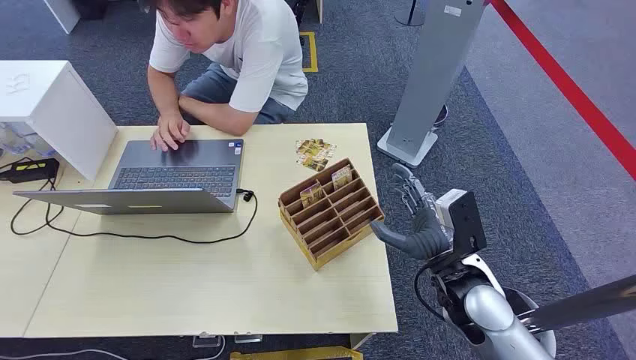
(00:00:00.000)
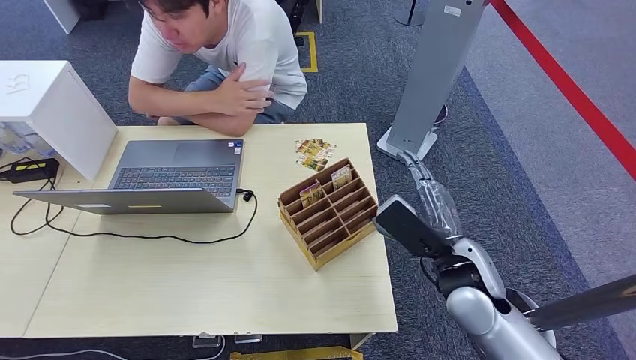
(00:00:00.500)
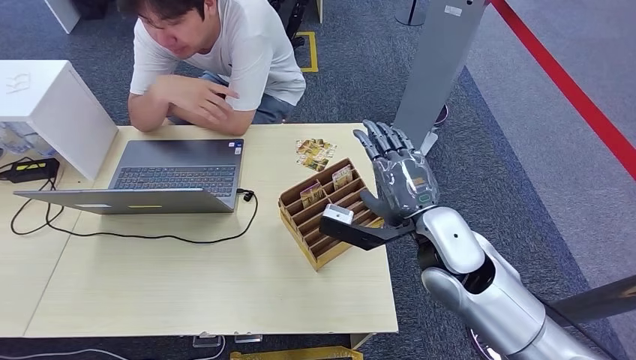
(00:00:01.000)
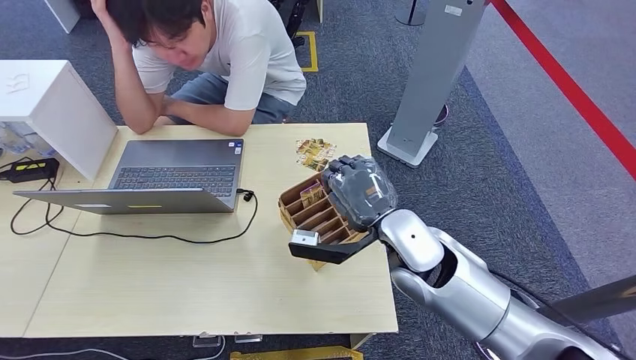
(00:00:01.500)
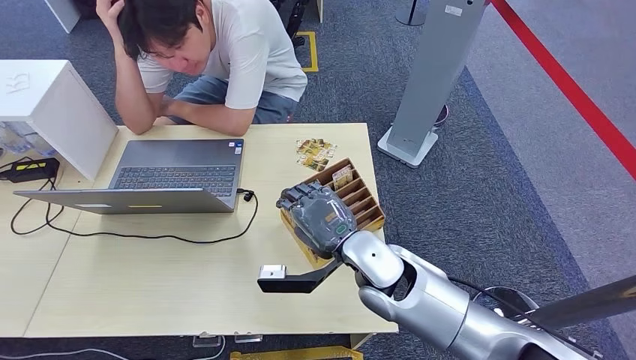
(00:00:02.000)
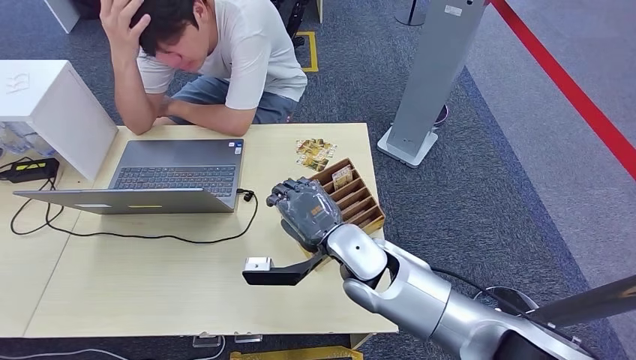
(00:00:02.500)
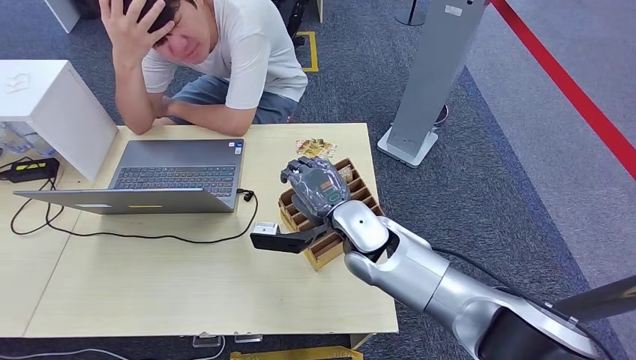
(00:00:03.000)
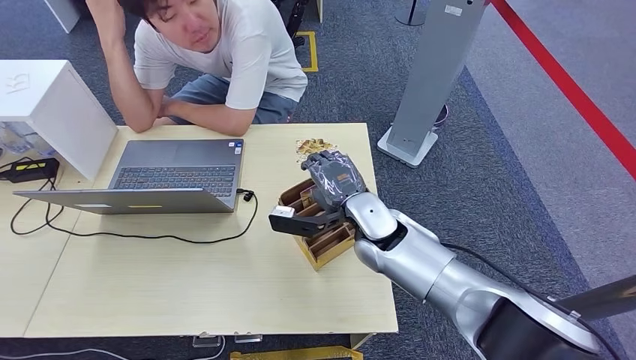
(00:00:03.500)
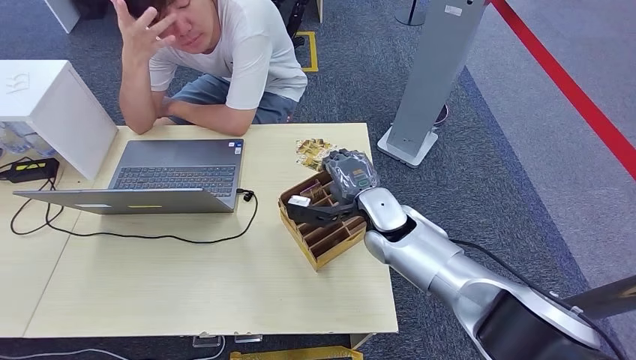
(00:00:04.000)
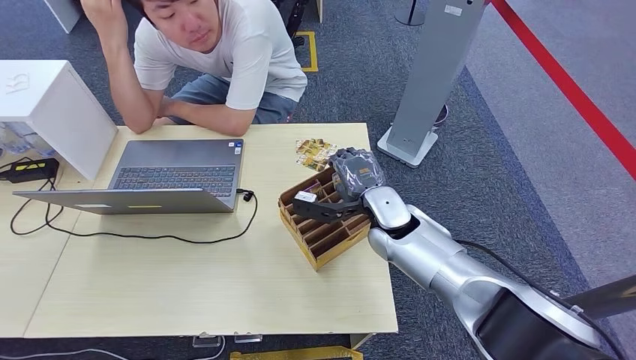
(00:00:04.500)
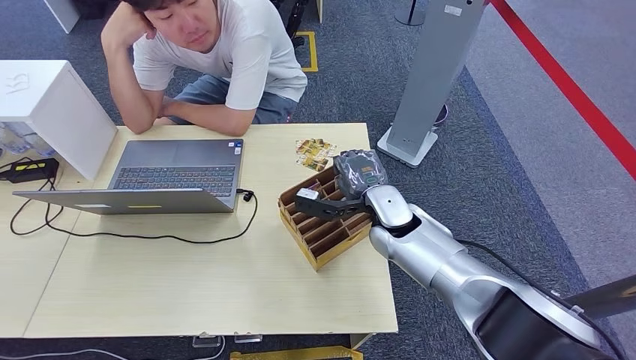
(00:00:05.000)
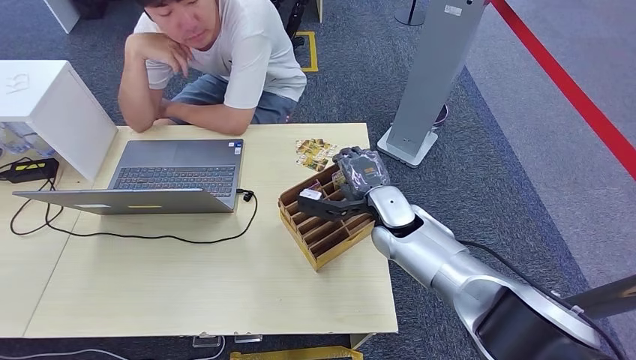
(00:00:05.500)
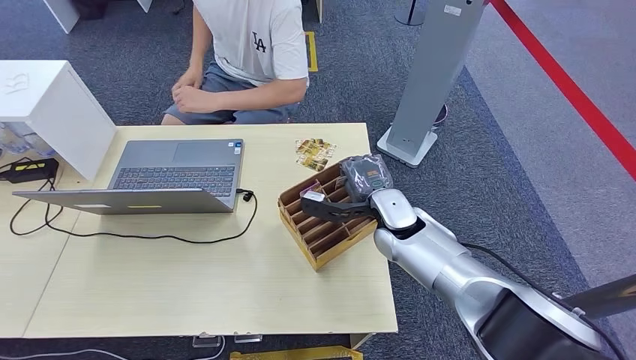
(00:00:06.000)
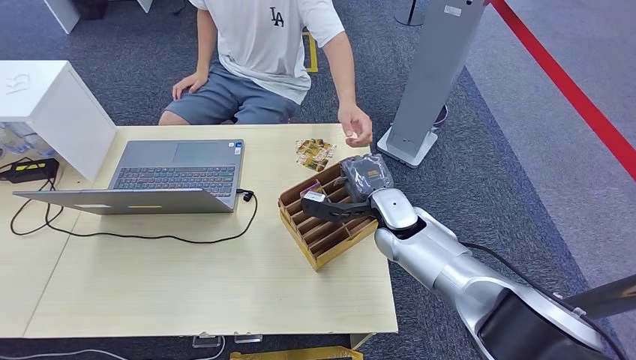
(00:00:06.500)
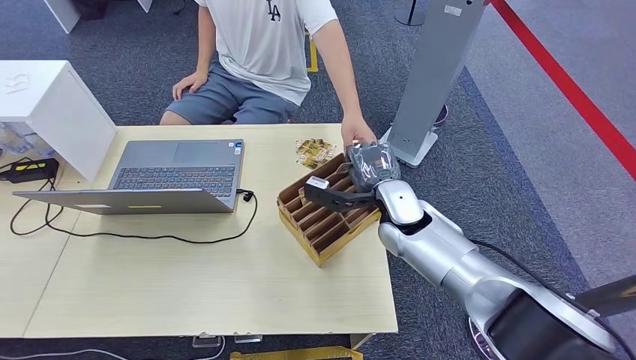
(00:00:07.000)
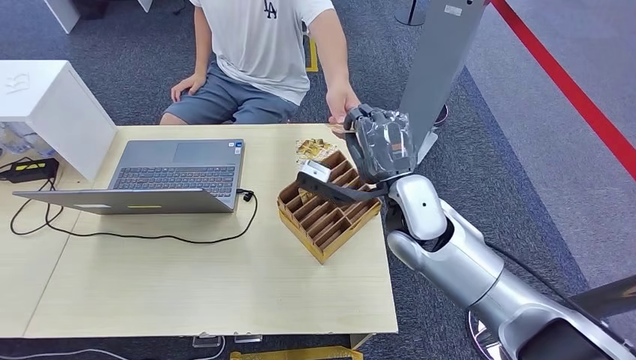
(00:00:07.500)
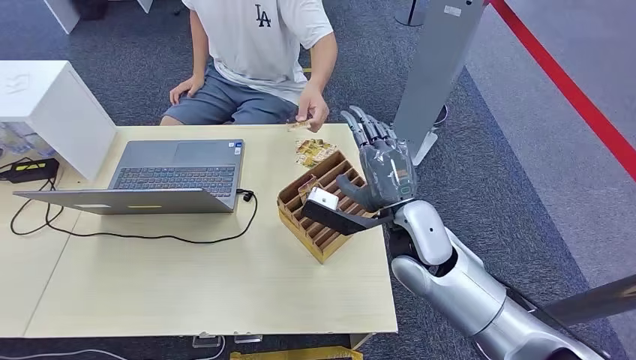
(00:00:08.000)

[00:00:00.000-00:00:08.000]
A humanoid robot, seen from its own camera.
Step, 00:00:00.000 to 00:00:06.500: Pick up the key card from the card box.
Step, 00:00:07.000 to 00:00:07.500: Hand the key card to the target.
00:00:02.000 to 00:00:04.000: The right hand shifts about 10 cm forward.
00:00:04.000 to 00:00:06.000: There are only small adjustments of the hands.
00:00:06.000 to 00:00:08.000: The right hand moves backward and upward, about 10 cm.
